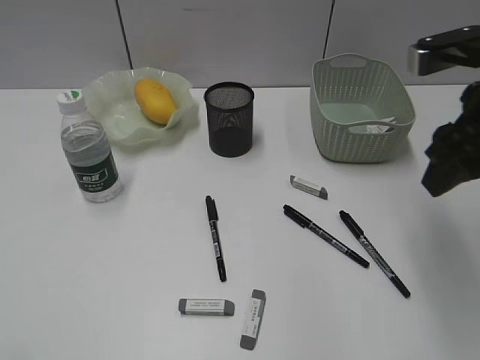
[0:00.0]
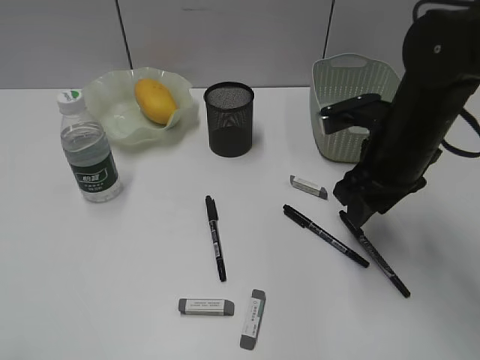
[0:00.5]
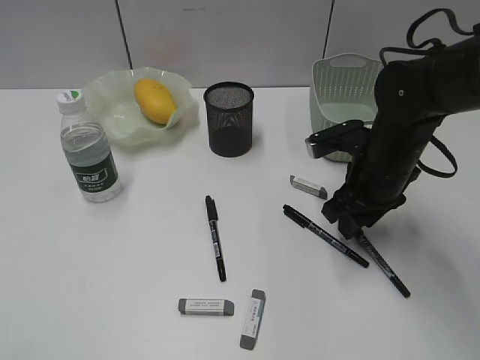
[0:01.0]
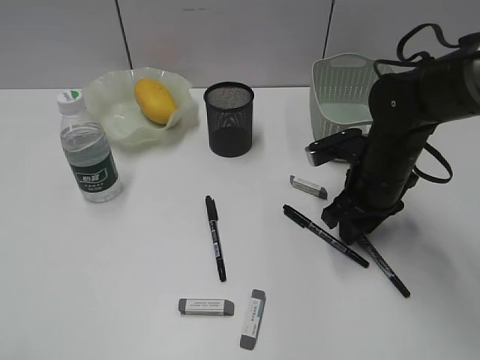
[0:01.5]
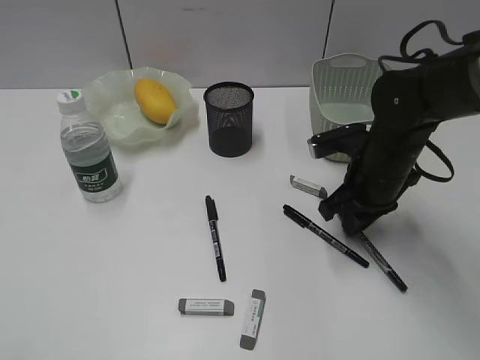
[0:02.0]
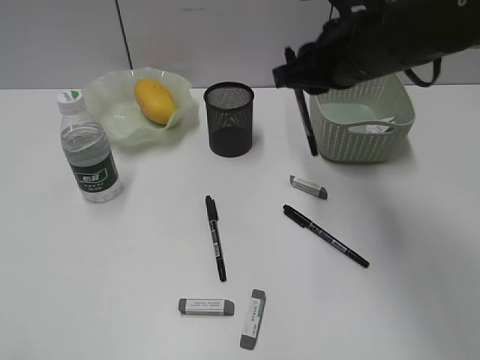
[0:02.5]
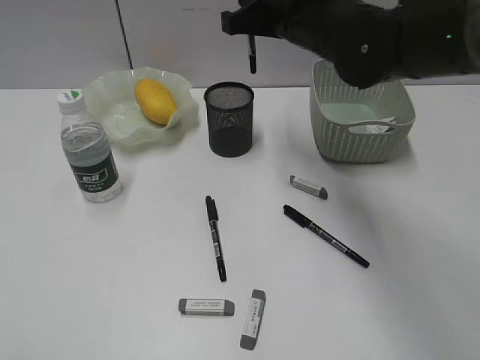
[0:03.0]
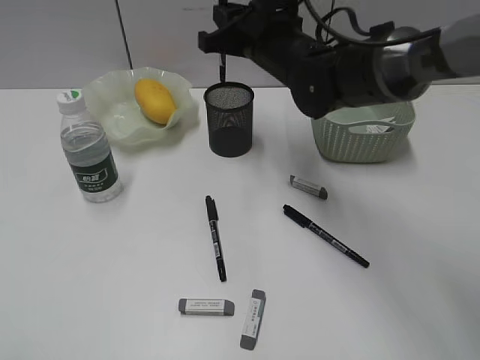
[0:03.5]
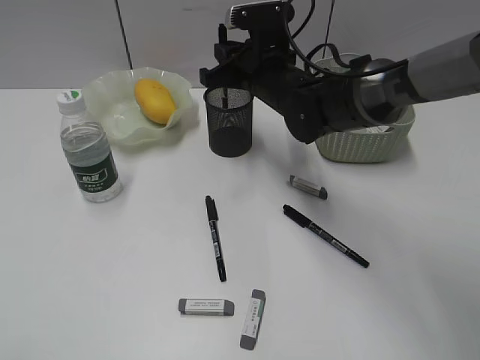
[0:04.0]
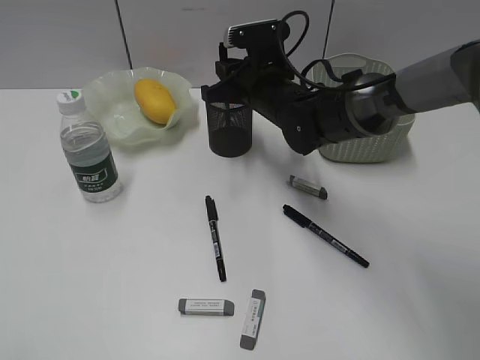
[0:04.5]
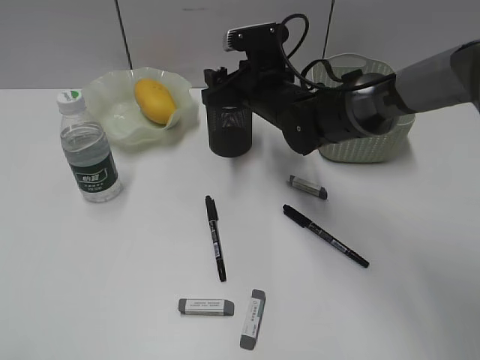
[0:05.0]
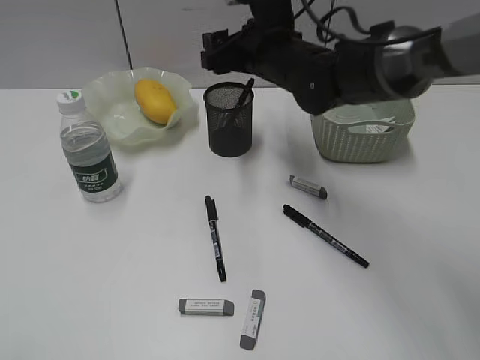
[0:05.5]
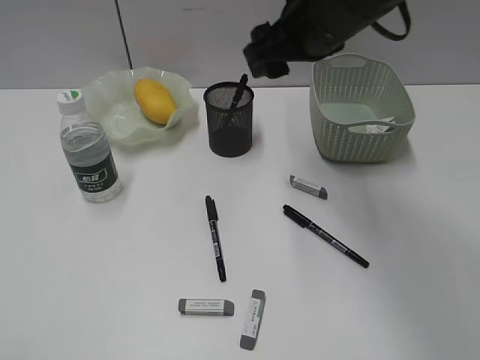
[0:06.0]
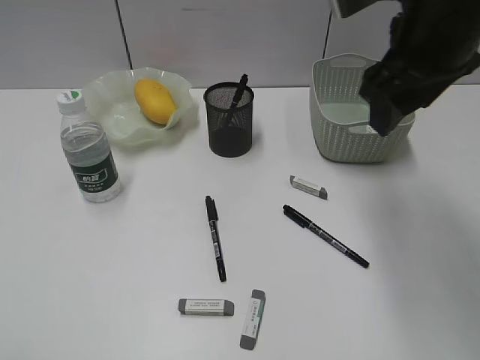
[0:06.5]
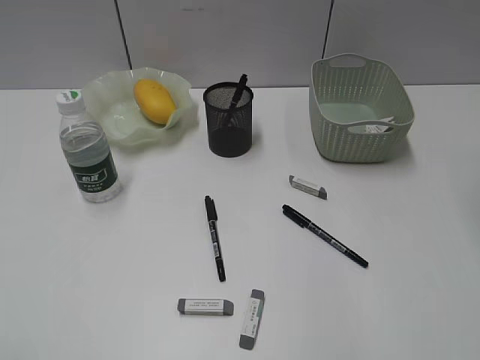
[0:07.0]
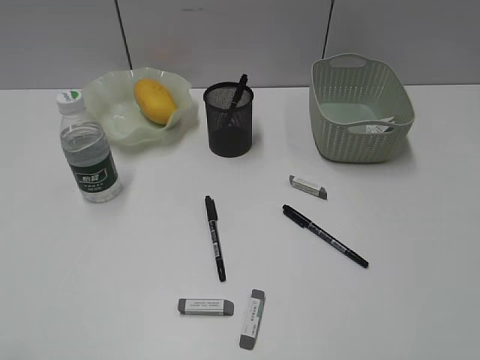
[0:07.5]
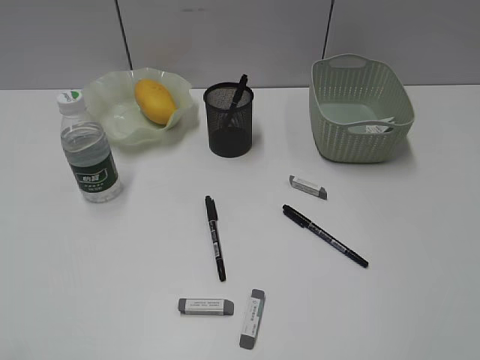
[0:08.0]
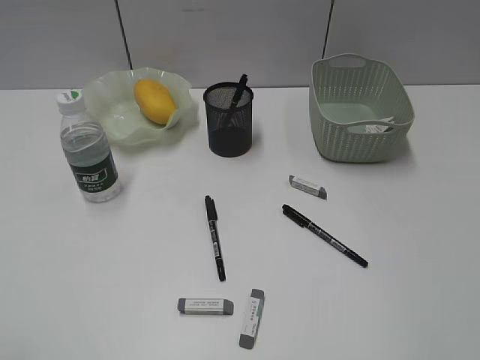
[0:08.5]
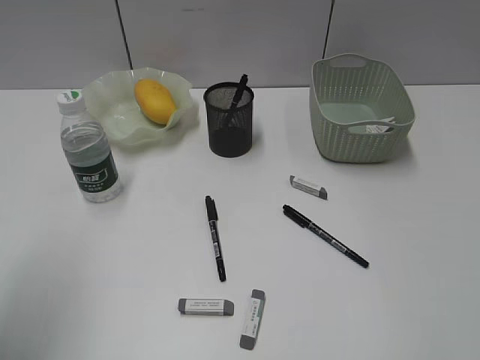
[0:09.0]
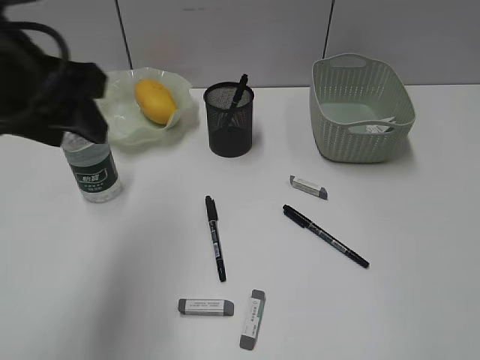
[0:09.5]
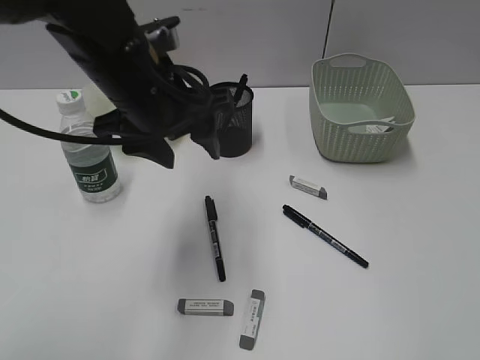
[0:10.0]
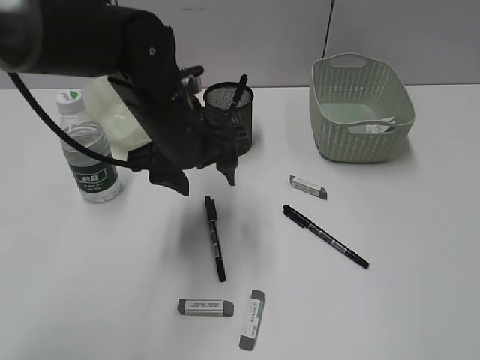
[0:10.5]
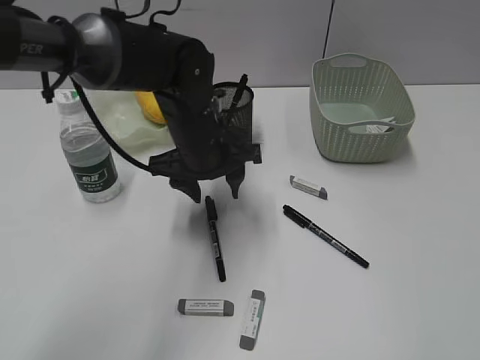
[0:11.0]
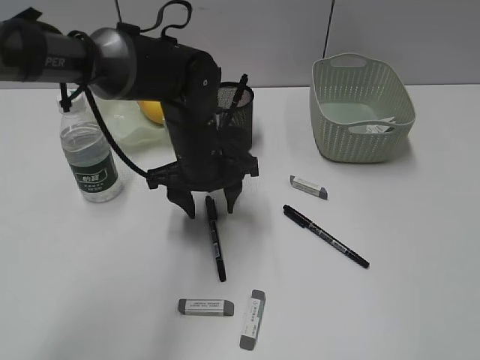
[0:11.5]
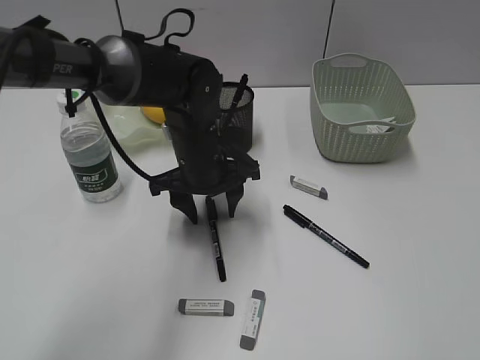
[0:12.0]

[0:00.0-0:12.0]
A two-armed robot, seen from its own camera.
Step, 0:02.0 to 0:05.0: Place the black pen in pen holder with right gripper.
0:00.0 to 0:02.0: The right gripper shifts about 15 cm downward and forward, and closes up.
0:02.0 to 0:04.0: The right gripper is displaced to the left and forward by approximately 15 cm, and moves roughly 15 cm upward and comes back.
0:04.0 to 0:06.0: The right gripper is displaced upward and backward by approximately 15 cm, and opens up.
0:06.0 to 0:08.0: The right gripper moves backward and to the right, some 35 cm.
0:08.0 to 0:10.0: The right gripper heads backward, covering approximately 5 cm. Meanwhile the left gripper is displaced forward and to the right by about 40 cm.
0:10.0 to 0:12.0: The left gripper is displaced downward and forward by about 15 cm.

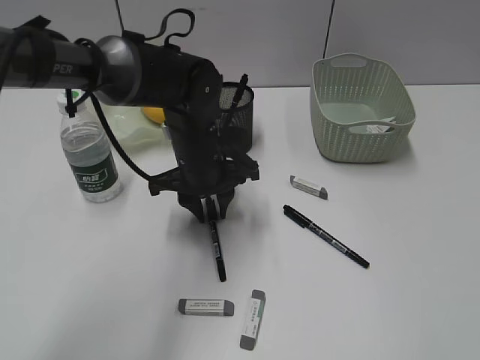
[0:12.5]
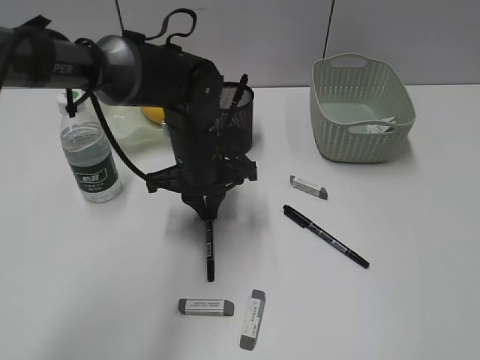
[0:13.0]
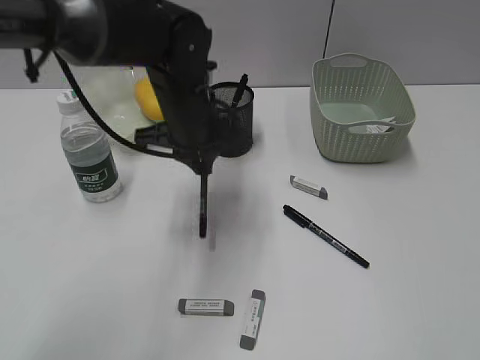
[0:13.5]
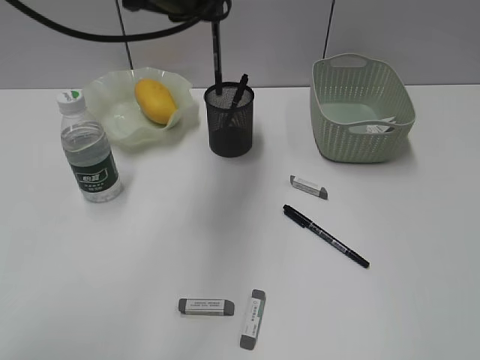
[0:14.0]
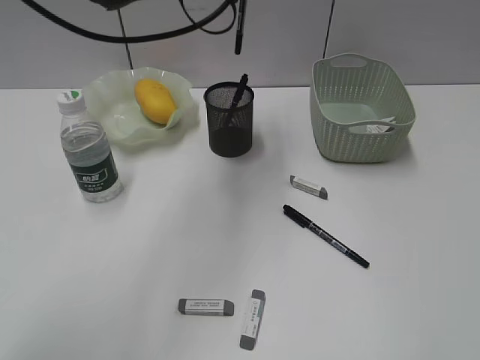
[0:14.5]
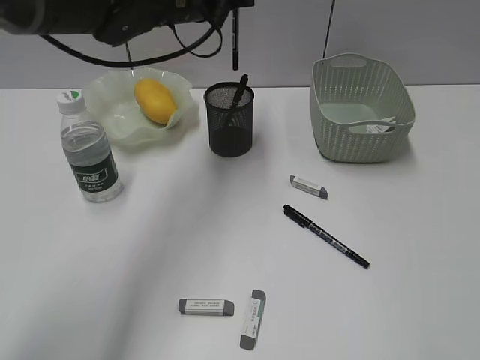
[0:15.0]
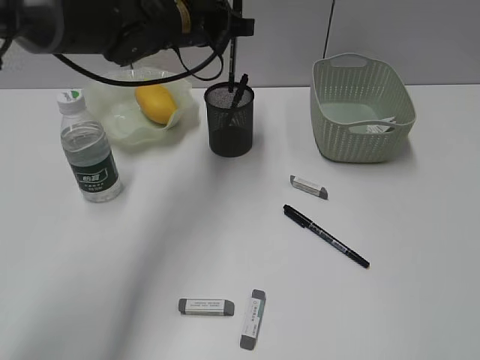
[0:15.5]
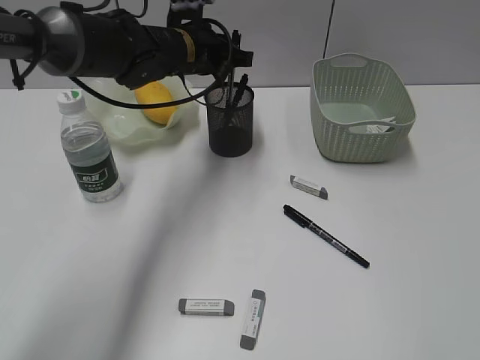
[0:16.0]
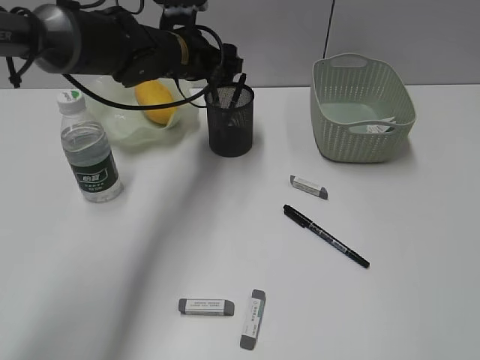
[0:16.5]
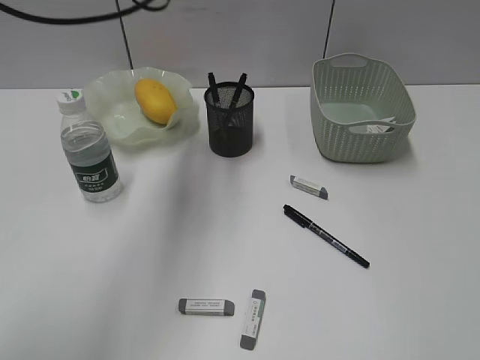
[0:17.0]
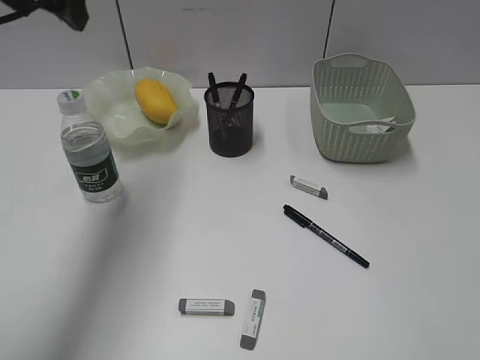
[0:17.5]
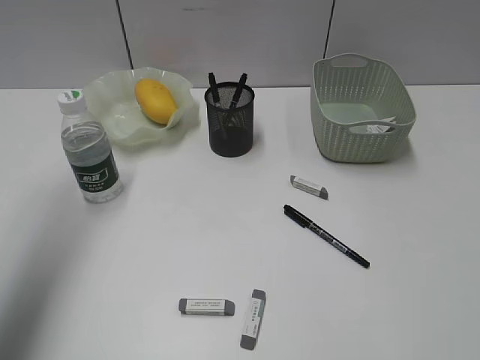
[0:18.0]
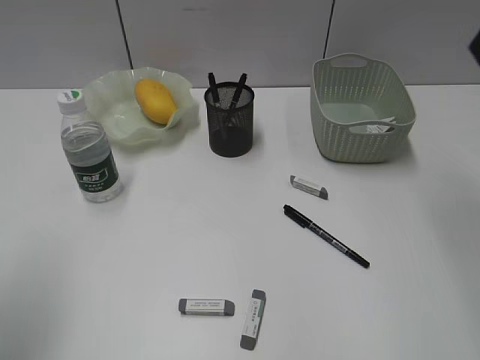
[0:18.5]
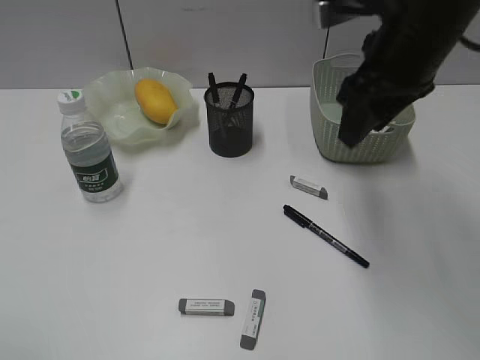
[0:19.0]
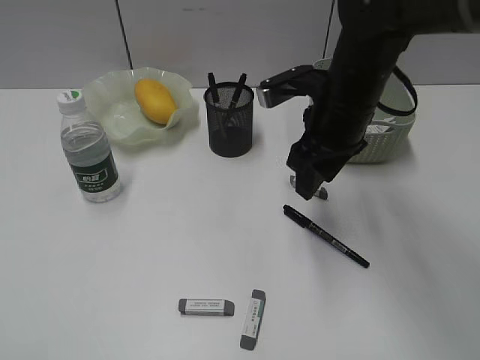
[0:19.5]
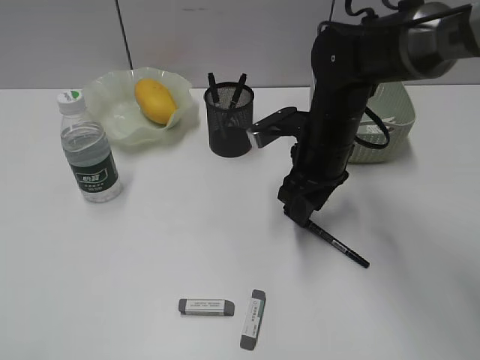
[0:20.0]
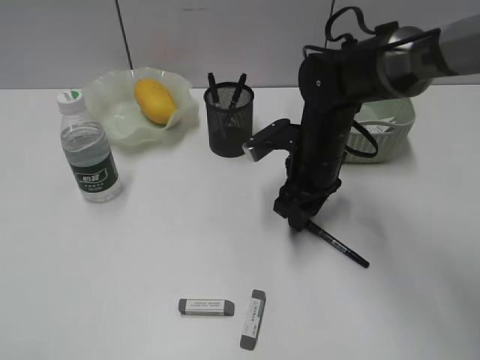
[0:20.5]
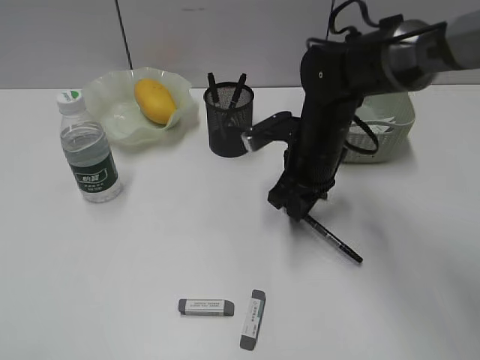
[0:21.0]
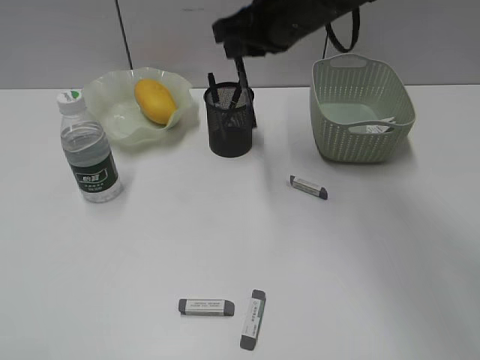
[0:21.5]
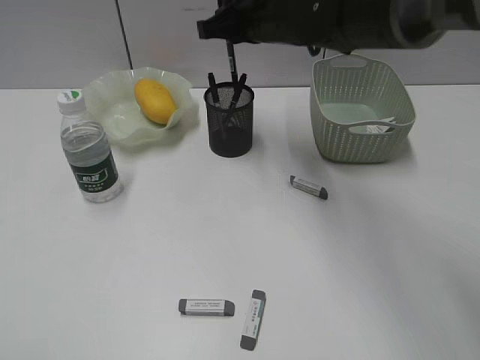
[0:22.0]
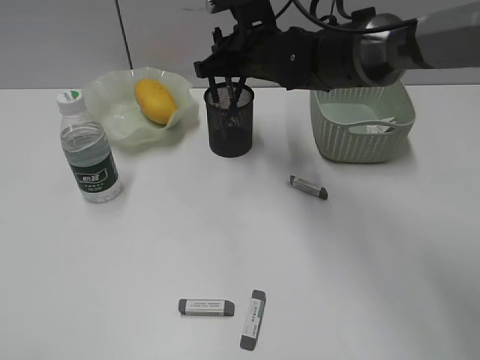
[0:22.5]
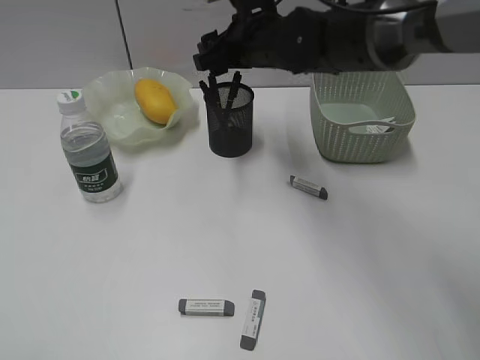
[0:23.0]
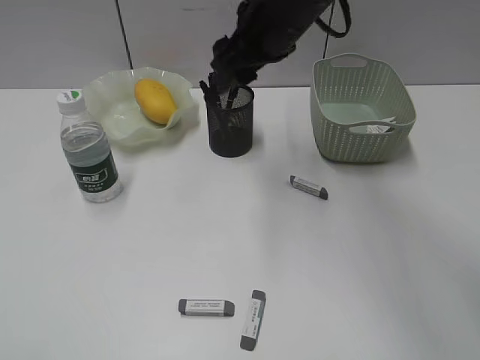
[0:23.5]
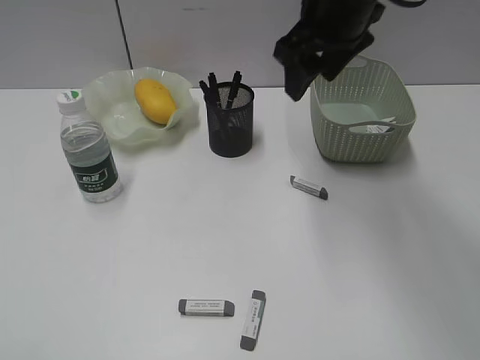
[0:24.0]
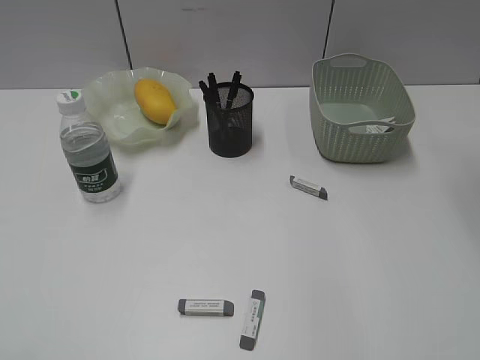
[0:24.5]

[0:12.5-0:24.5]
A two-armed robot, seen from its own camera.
Step, 0:13.5 to 0:16.5: Place the black pen in pen holder with left gripper.
Step, 0:17.0 to 0:20.5: Grasp the black pen with right gripper.
Step, 0:21.0 to 0:23.0: Place the black pen in pen holder with right gripper.
0:12.5 to 0:14.5: The left gripper moves upward, about 20 cm.
0:14.5 to 0:16.5: The left gripper goes about 10 cm downward, and opens up.
0:16.5 to 0:18.5: The left gripper is displaced backward and to the left by some 40 cm; the right gripper goes some 25 cm forward.
0:18.5 to 0:20.5: The right gripper shifts some 30 cm downward and to the left. The left gripper shifts roughly 15 cm backward.
0:20.5 to 0:22.5: The right gripper travels upward, forward and to the left by approximately 15 cm, and closes.
0:22.5 to 0:24.5: The right gripper moves to the right, upward and backward, roughly 30 cm, and opens its fingers.

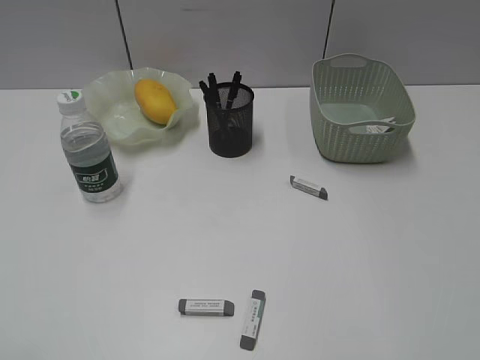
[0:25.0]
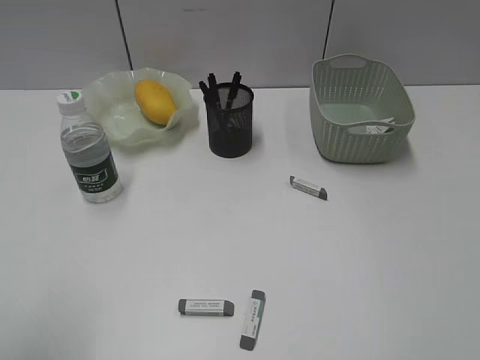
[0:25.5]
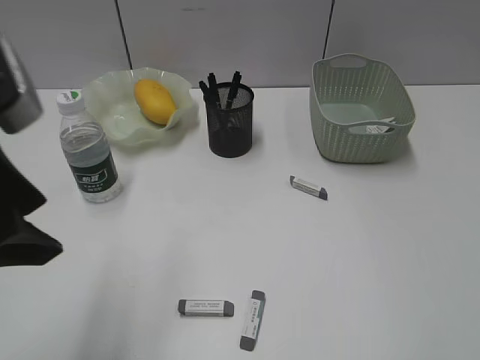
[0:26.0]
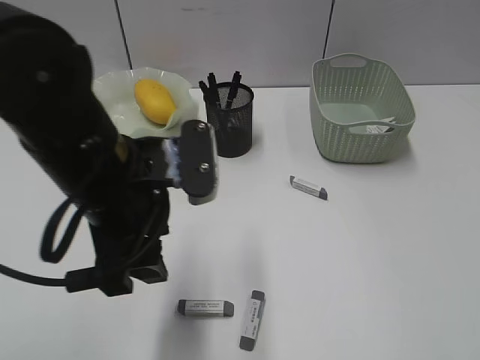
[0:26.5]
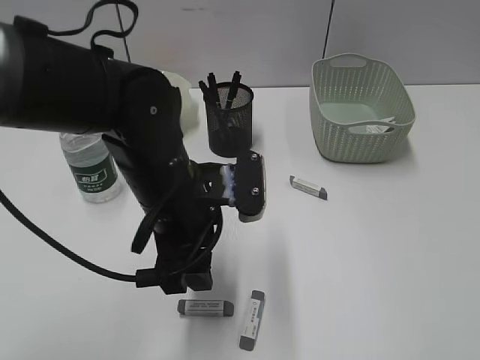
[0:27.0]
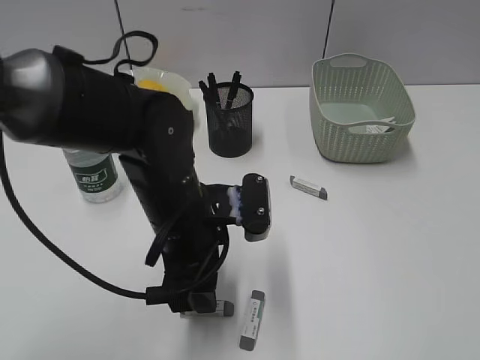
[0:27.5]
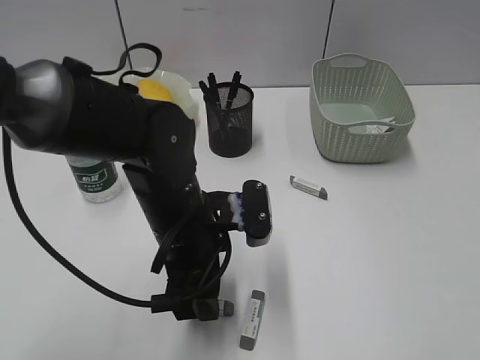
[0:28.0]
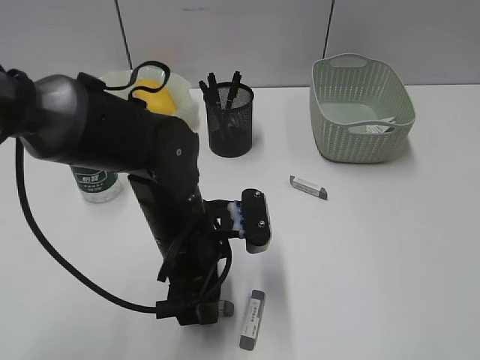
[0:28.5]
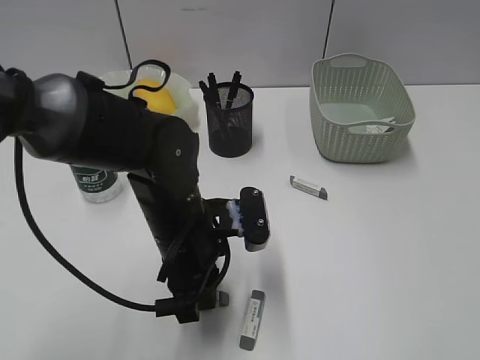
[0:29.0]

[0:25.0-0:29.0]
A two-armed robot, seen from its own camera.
Step, 0:25.0 to 0:28.5: Grasp the eraser with left gripper.
0:25.0 to 0:27.0: The right gripper travels backward and downward by some 15 cm; the left gripper moves to the right, forward and downward, some 35 cm.
0:27.0 to 0:29.0: The left gripper closes.
